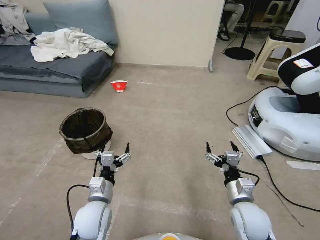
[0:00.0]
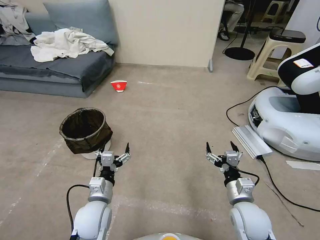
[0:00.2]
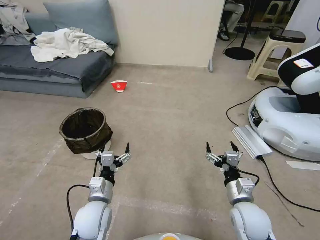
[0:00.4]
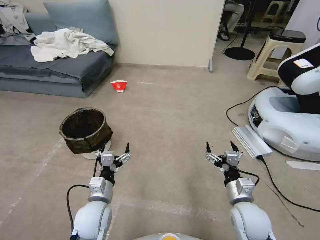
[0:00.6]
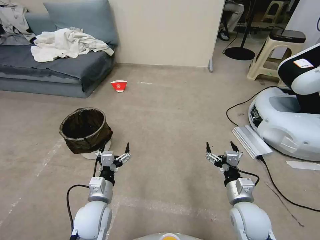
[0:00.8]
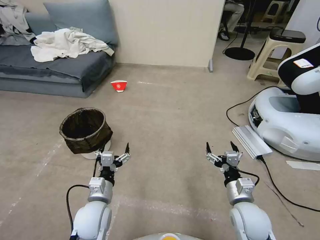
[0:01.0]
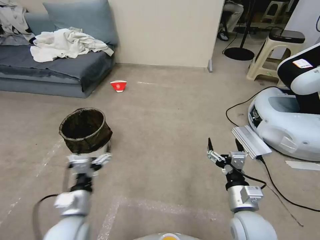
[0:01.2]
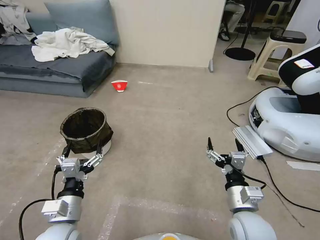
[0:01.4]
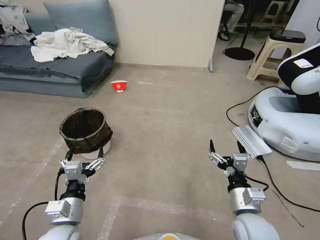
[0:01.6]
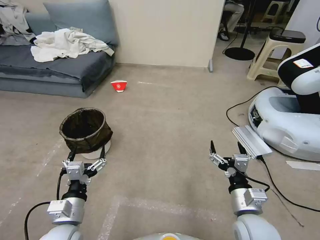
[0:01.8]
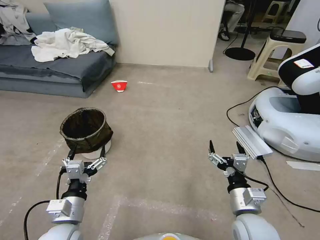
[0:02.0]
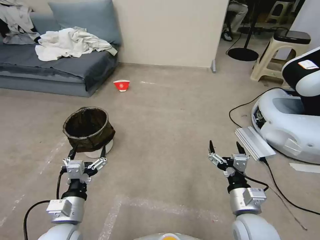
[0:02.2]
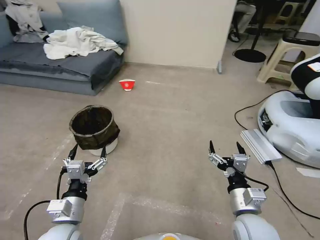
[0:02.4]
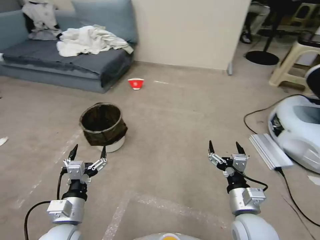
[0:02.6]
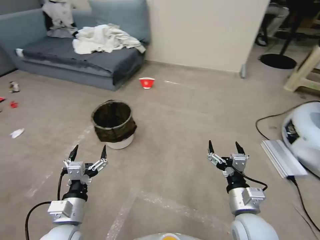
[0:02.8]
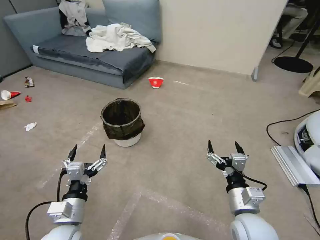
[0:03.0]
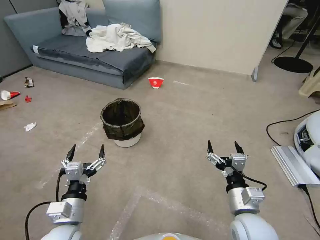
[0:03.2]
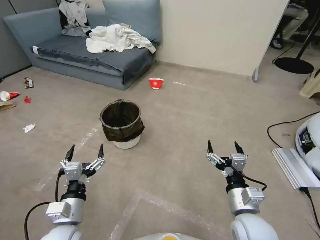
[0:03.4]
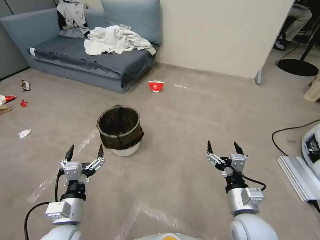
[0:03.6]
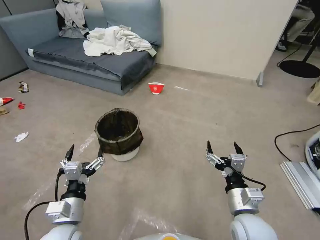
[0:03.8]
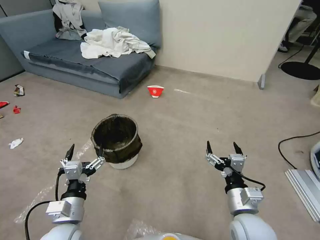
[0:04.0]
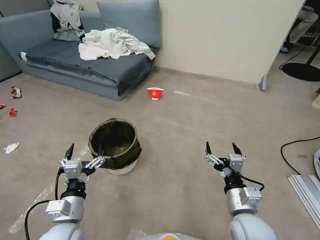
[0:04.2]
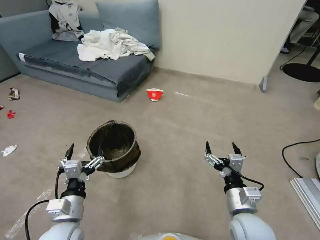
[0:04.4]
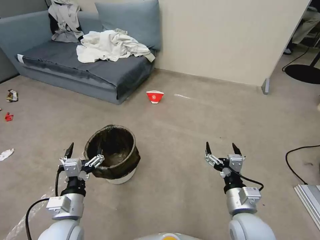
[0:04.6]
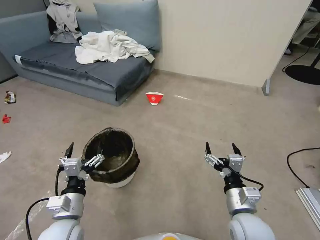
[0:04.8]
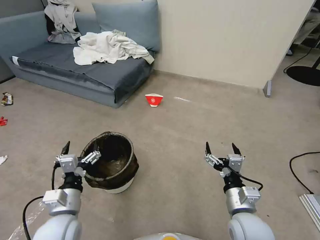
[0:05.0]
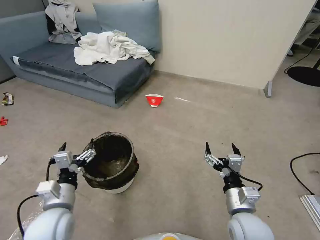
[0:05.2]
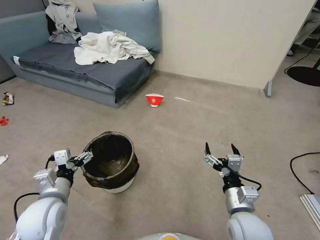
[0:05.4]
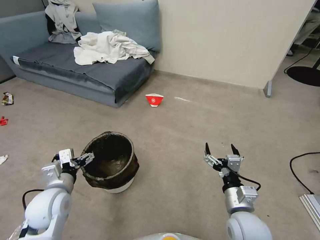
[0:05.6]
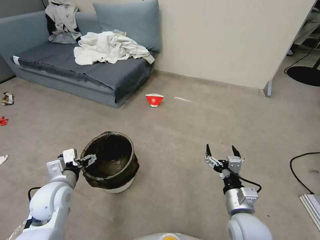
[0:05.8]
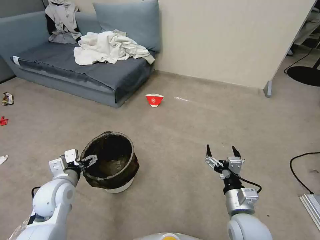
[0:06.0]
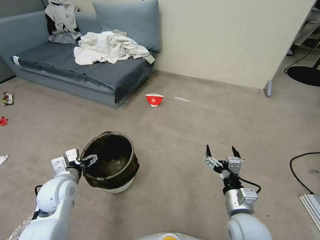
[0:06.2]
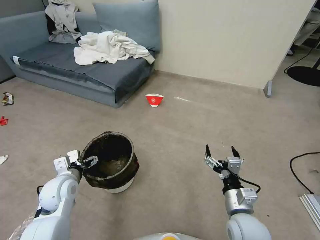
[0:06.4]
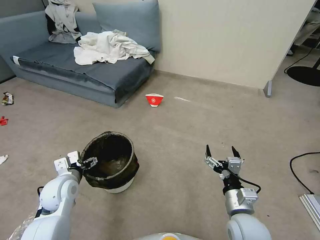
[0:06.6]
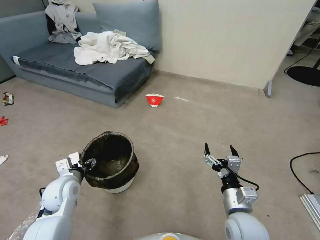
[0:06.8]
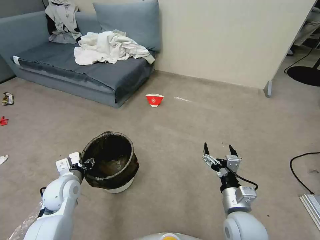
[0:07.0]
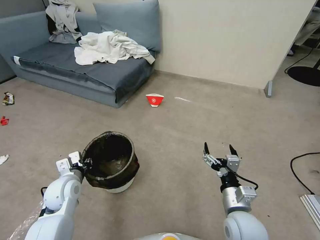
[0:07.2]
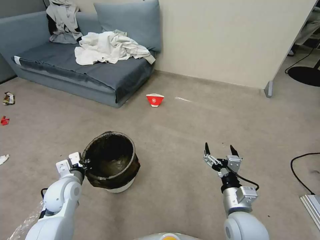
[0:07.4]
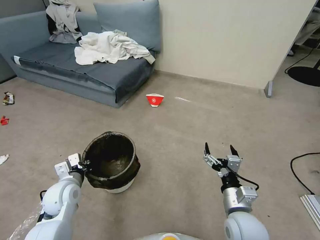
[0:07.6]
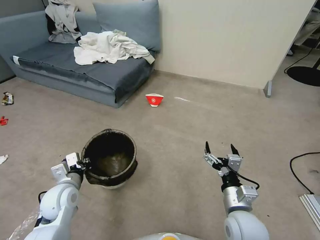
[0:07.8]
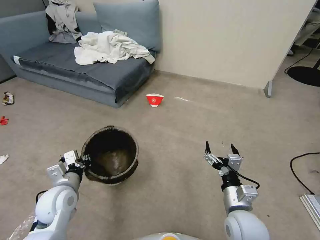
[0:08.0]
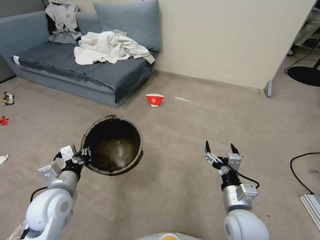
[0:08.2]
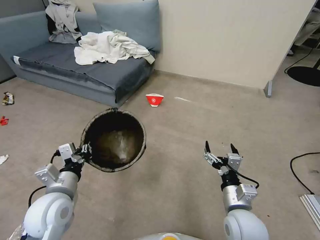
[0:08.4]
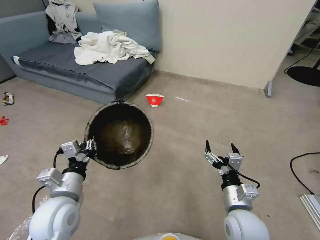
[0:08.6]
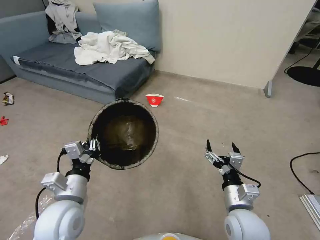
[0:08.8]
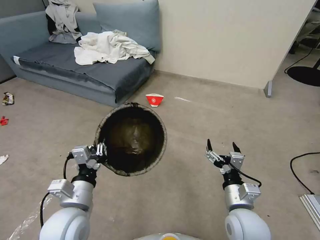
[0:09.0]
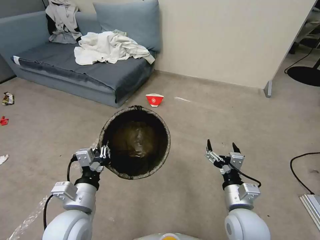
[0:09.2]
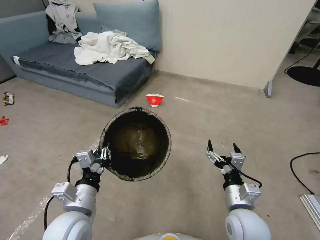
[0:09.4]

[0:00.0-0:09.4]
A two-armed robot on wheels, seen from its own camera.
Task of the whole recording: Pick up the trash can from the floor.
0:04.8 to 0:06.2: The left gripper moves forward and to the left, approximately 10 cm.
0:06.2 to 0:07.8: The left gripper closes up.
0:07.8 to 0:09.4: The left gripper is displaced to the right, backward and upward by some 15 cm.

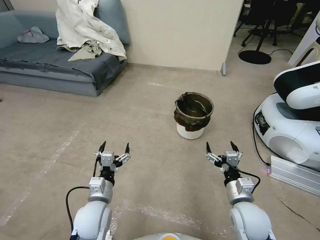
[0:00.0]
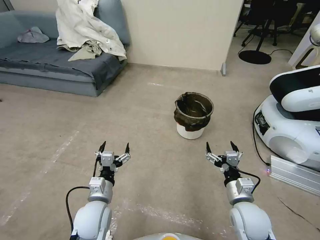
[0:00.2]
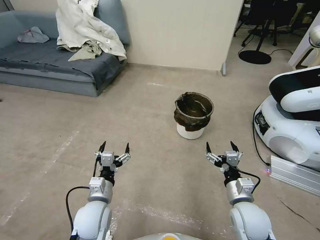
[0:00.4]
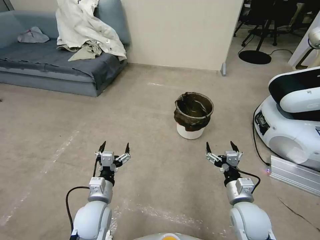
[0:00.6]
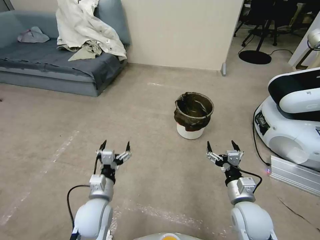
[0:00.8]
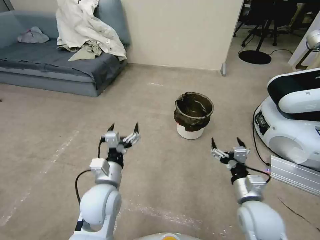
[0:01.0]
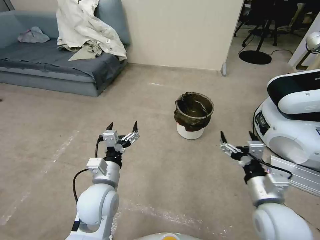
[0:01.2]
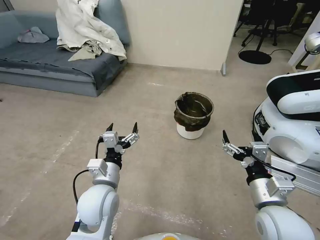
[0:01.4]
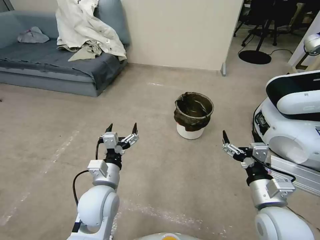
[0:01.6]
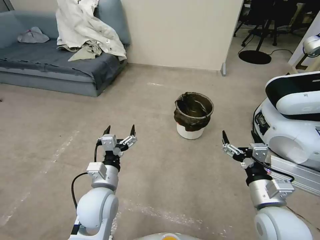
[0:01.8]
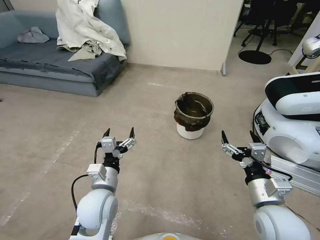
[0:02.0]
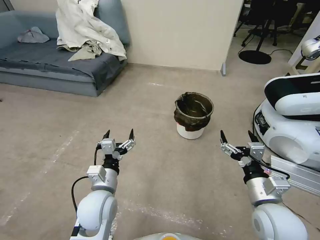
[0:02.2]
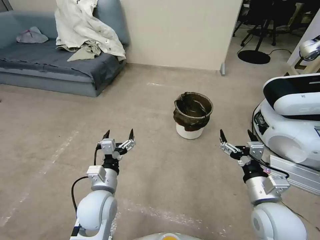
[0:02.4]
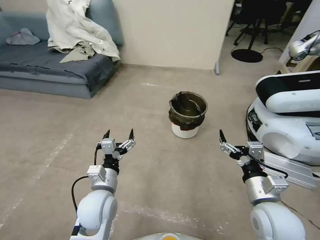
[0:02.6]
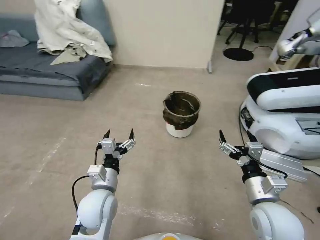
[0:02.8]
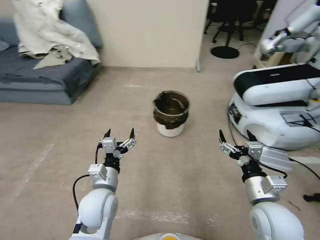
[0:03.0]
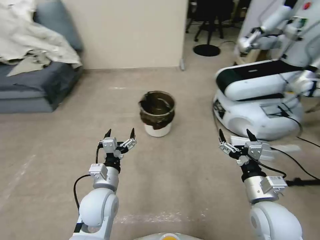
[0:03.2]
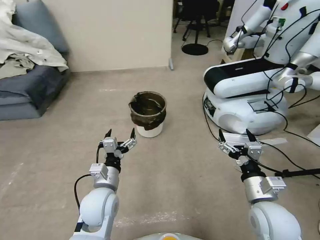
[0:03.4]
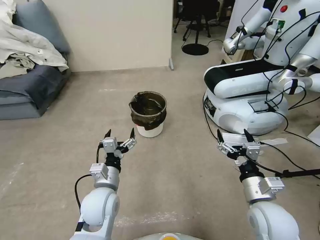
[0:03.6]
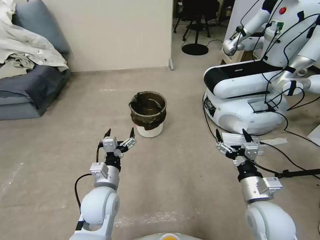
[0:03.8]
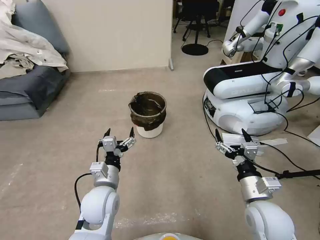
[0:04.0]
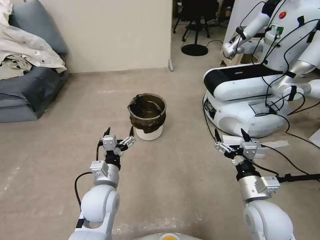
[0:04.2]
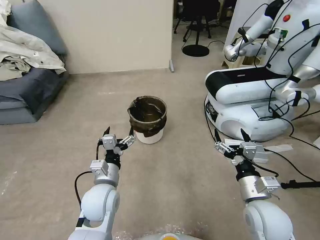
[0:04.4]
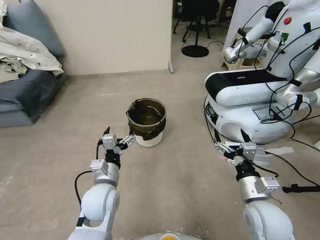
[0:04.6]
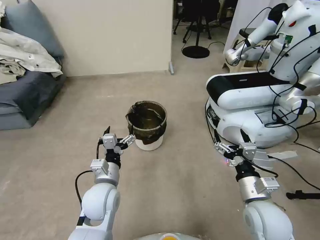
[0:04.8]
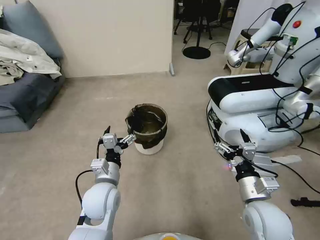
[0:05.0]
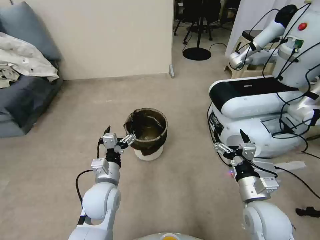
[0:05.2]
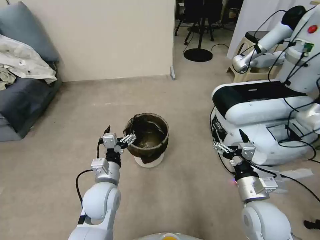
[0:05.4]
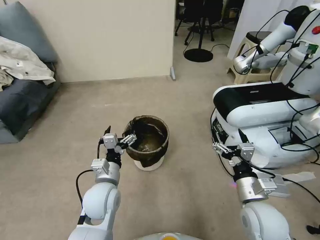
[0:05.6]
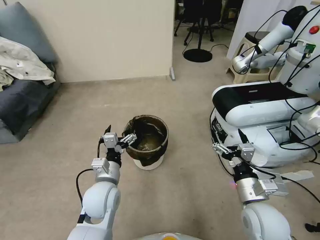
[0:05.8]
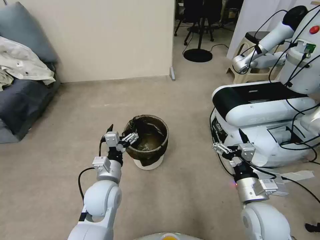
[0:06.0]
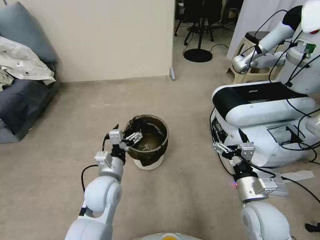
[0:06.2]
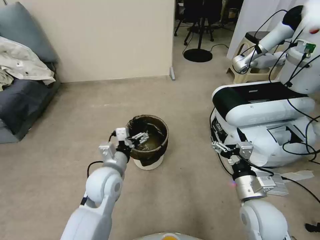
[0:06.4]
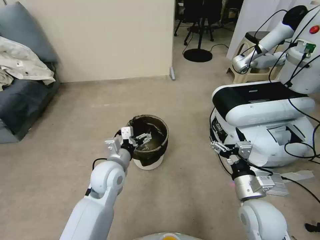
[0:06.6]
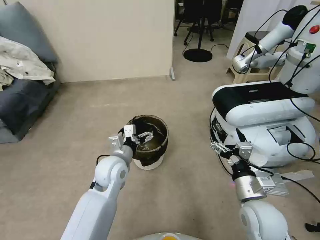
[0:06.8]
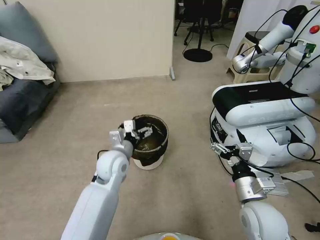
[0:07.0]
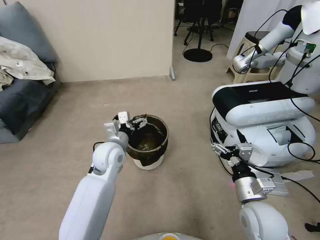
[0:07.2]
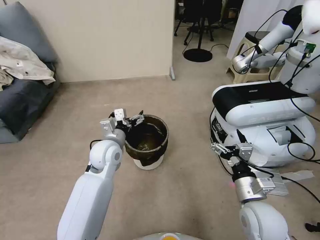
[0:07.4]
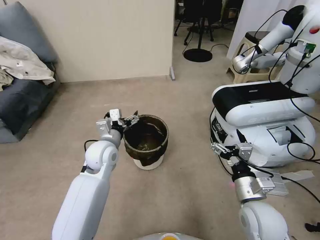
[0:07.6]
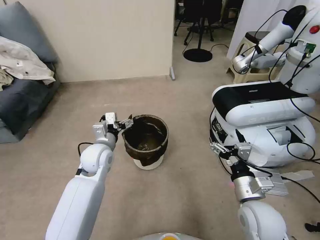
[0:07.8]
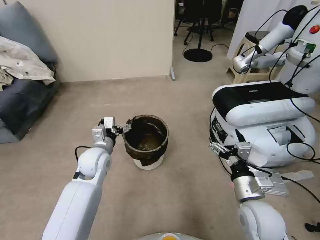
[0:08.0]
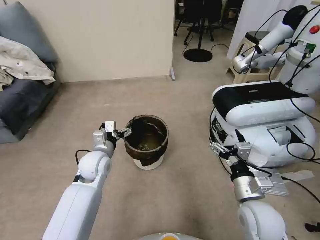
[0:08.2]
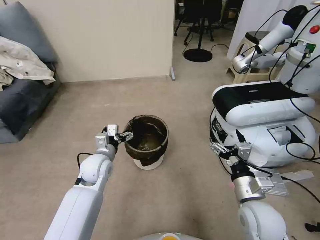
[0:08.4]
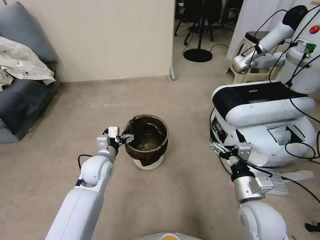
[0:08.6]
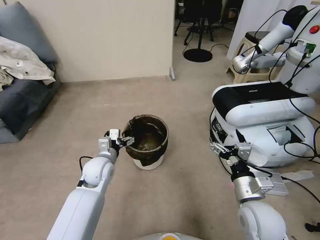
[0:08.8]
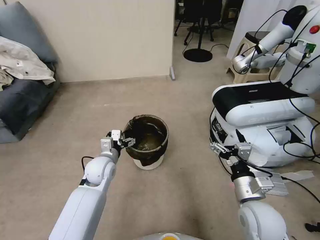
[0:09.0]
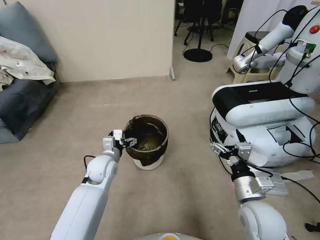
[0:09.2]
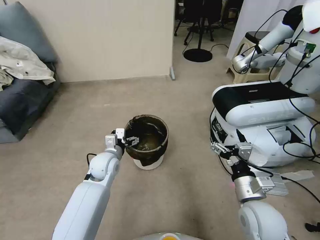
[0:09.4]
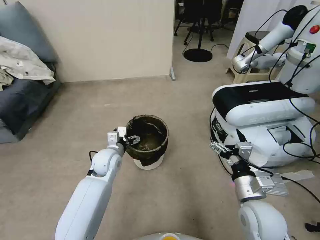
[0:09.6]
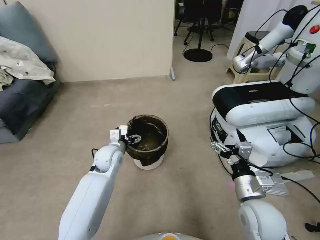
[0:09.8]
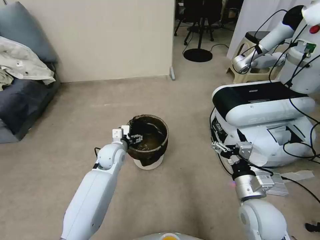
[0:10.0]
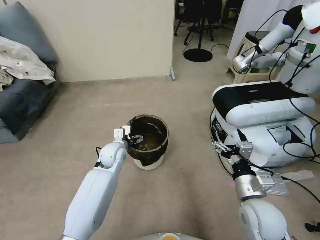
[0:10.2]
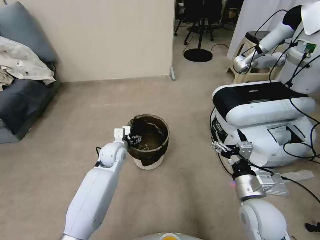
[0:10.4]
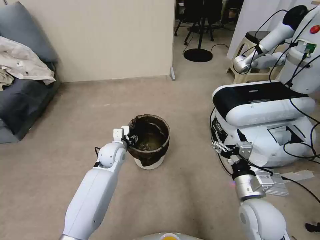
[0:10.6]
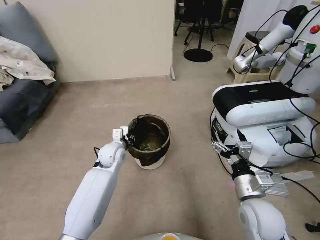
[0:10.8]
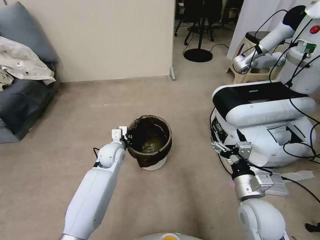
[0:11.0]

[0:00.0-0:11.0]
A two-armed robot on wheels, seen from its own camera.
Task of the whole recording: Pick up the trash can from the floor.
0:06.2 to 0:07.8: The left gripper travels forward by about 10 cm.
0:07.8 to 0:09.4: The left gripper moves downward, approximately 5 cm.
0:09.4 to 0:11.0: The left gripper moves approximately 5 cm, and closes up.

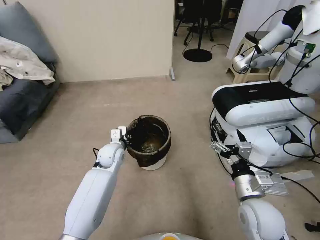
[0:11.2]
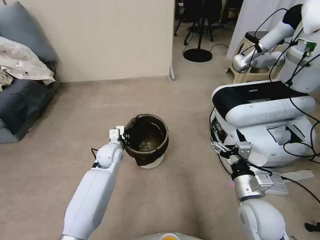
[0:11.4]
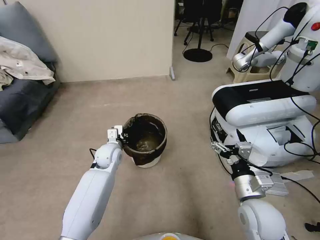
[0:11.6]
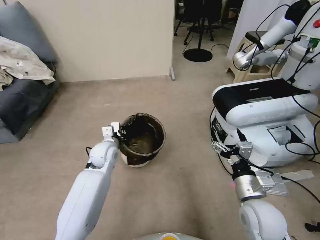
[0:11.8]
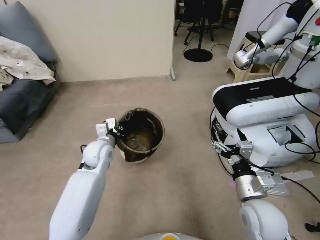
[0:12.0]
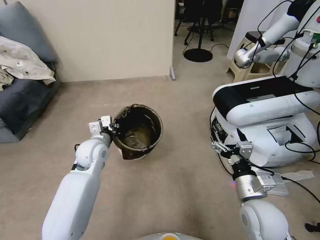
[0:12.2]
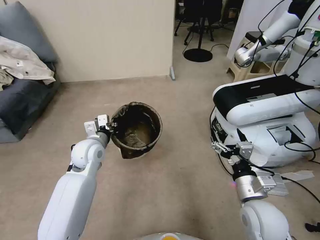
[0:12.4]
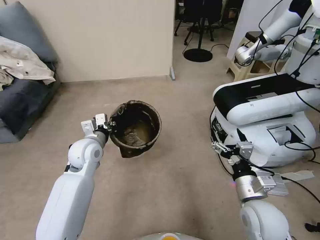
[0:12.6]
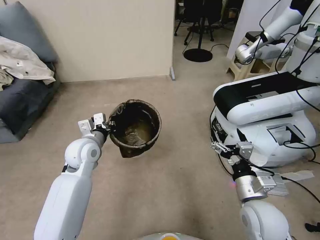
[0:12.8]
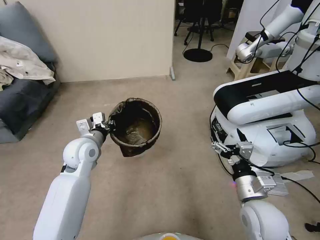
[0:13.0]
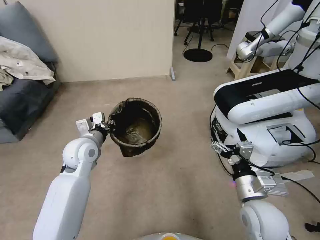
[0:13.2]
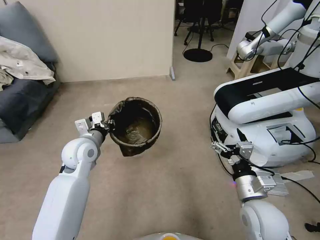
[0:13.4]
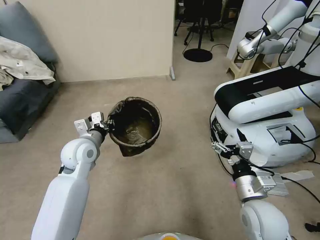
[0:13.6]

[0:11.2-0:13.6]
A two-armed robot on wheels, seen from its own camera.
Task of the whole recording: Pick up the trash can from the floor.
0:11.2 to 0:12.4: The left gripper goes roughly 10 cm upward.
0:12.4 to 0:13.6: The grippers make only small movements.
